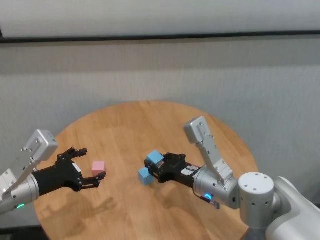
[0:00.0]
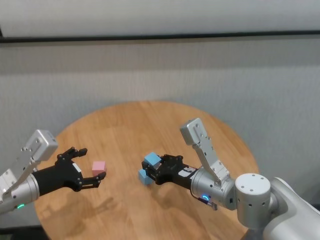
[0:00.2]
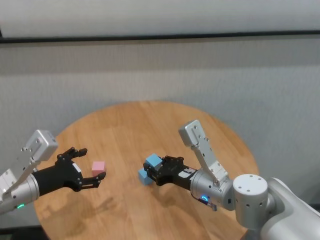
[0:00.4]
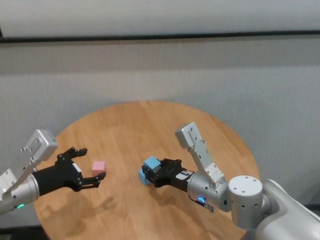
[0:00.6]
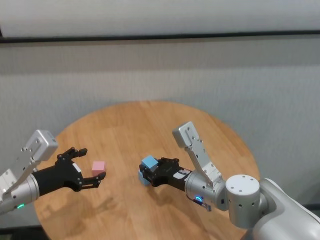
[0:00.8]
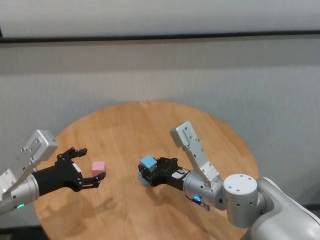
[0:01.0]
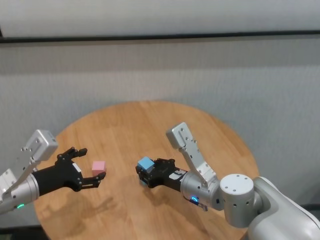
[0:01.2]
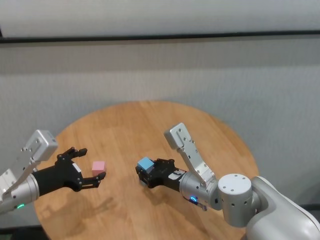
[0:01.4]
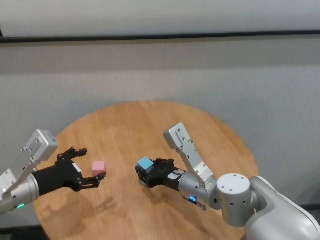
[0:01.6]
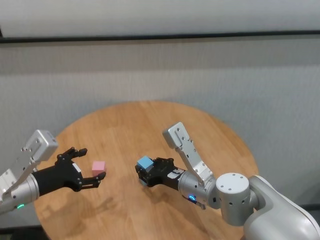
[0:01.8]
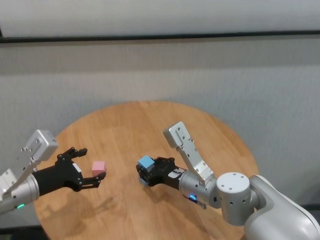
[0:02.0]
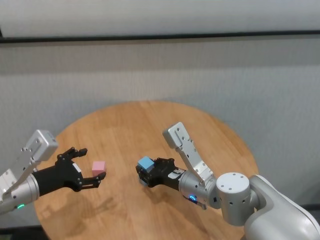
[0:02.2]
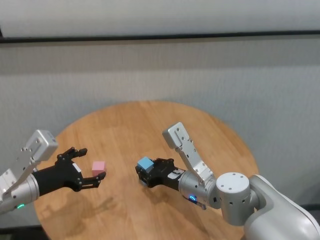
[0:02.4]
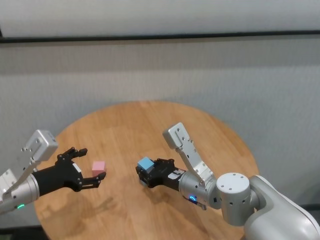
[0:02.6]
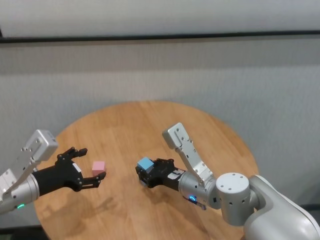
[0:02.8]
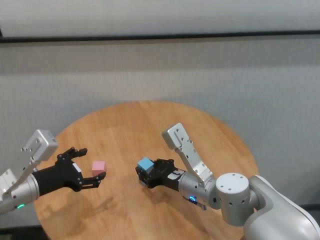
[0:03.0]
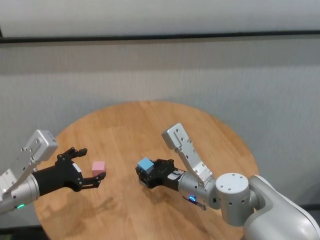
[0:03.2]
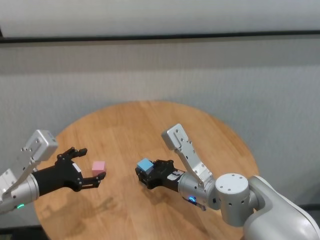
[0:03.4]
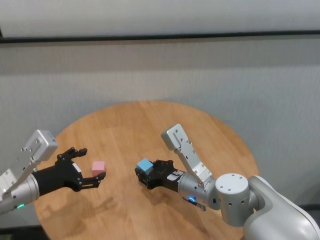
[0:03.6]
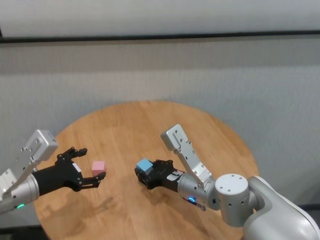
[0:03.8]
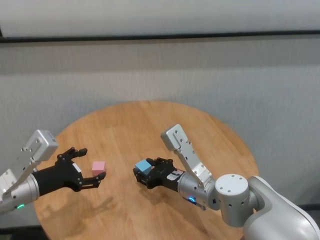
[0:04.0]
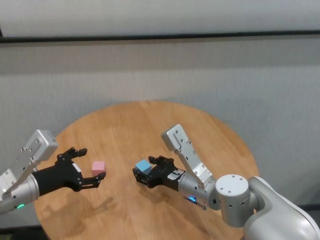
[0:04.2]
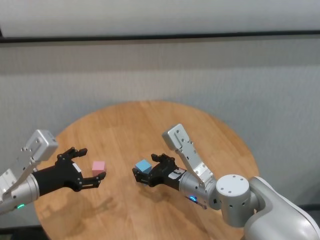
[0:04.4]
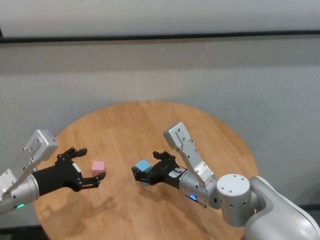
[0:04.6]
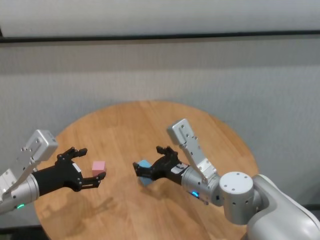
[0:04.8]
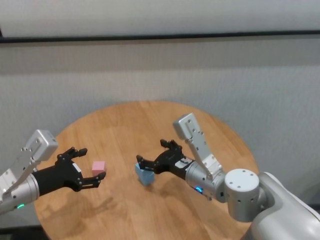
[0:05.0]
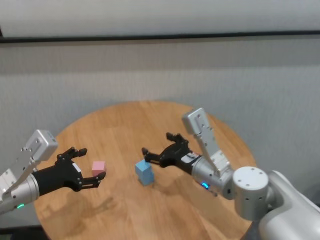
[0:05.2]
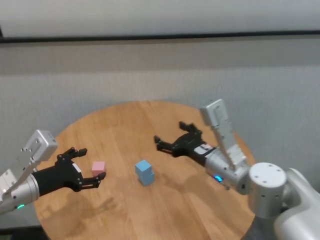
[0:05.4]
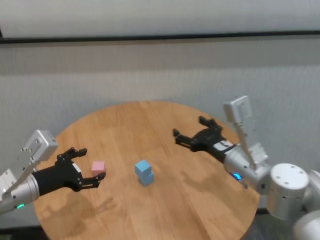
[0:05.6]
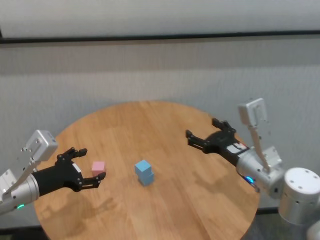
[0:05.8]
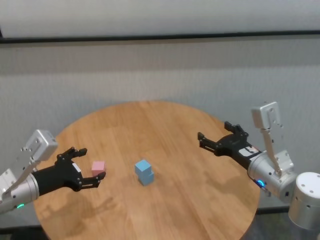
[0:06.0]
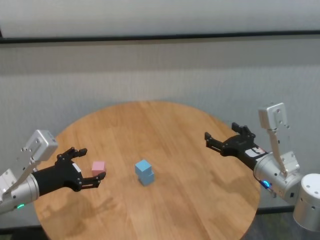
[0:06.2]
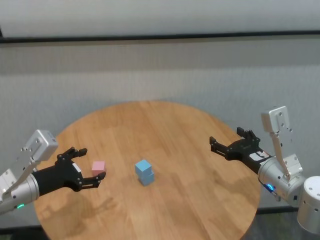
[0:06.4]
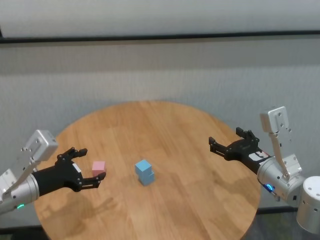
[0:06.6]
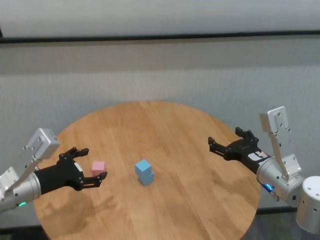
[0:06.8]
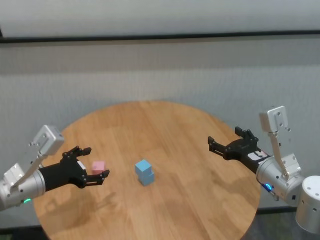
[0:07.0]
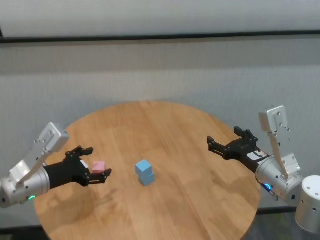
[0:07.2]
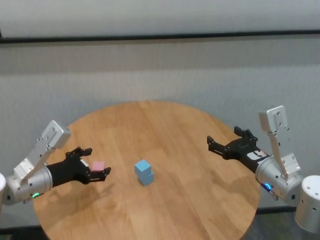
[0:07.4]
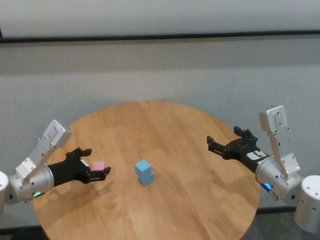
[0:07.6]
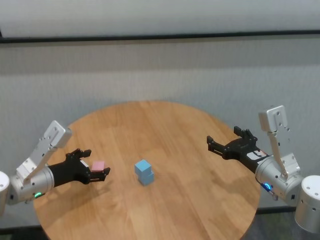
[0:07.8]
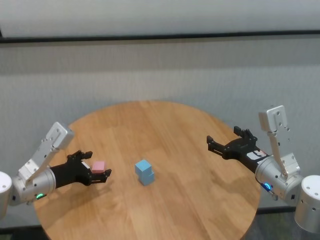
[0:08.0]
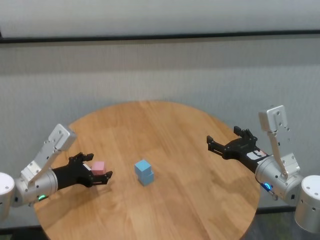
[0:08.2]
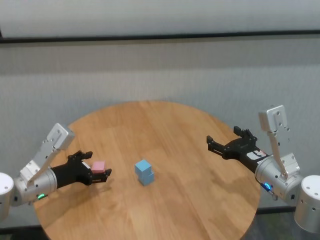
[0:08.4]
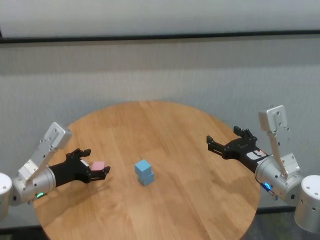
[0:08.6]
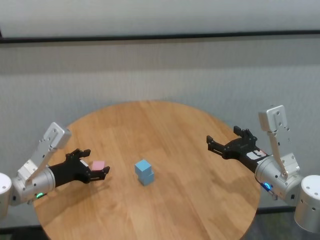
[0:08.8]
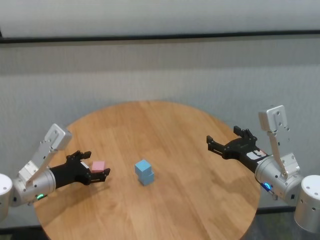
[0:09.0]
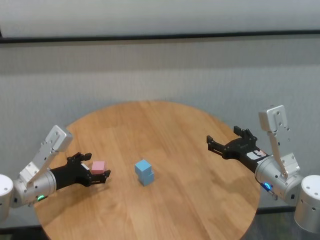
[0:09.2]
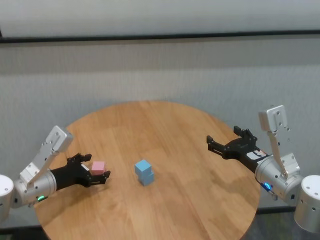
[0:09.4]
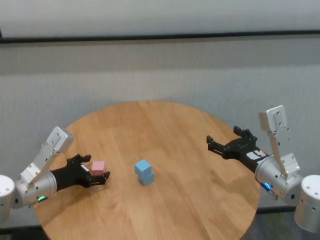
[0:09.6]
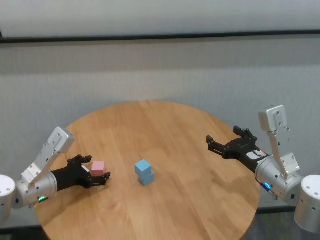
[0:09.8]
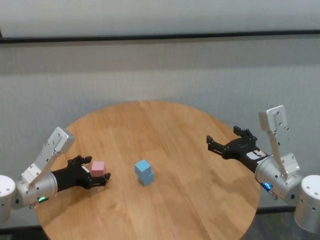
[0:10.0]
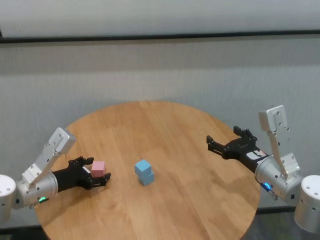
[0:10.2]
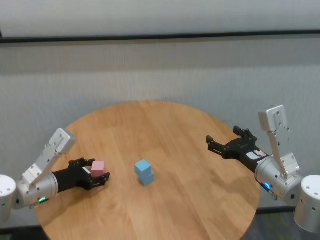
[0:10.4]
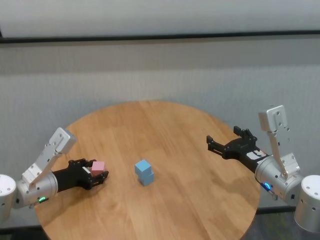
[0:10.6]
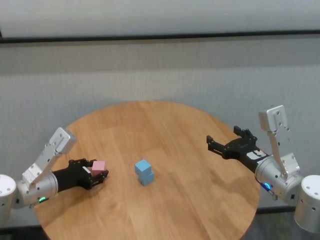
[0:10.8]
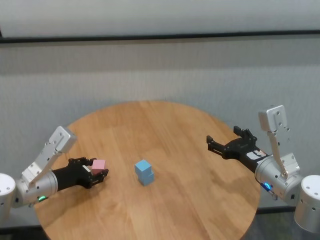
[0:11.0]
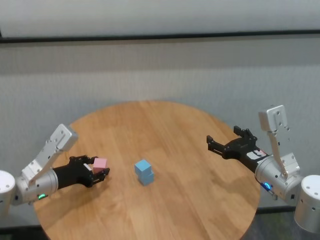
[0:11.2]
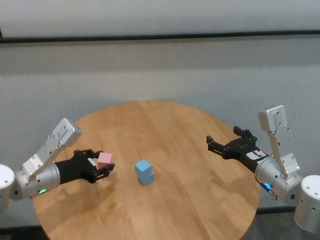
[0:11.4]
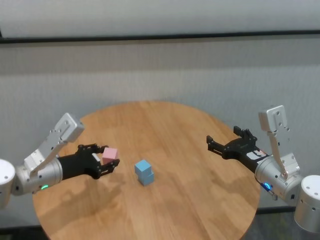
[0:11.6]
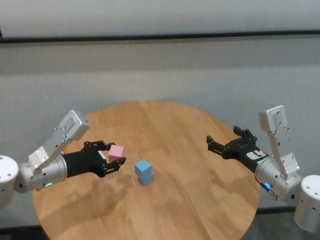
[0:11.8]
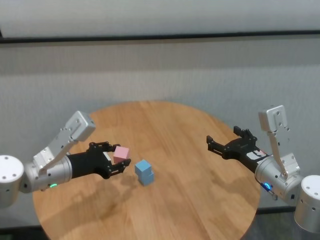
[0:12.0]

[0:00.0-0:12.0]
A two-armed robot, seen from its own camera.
Task of the whole recording: stack building blocks on the table.
Step, 0:00.0 to 0:04.4: Place the blue building block on the blue building blocks with right gripper.

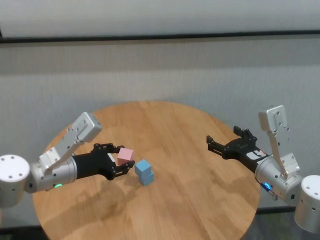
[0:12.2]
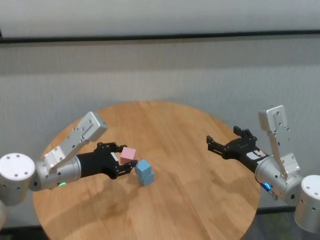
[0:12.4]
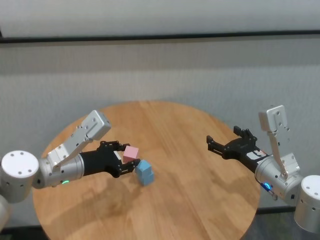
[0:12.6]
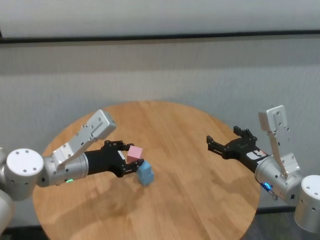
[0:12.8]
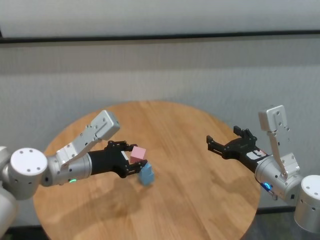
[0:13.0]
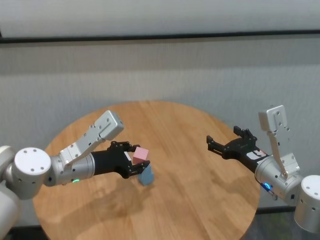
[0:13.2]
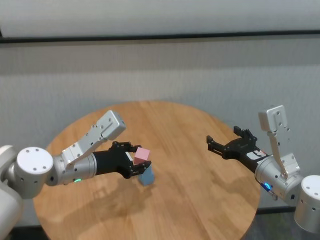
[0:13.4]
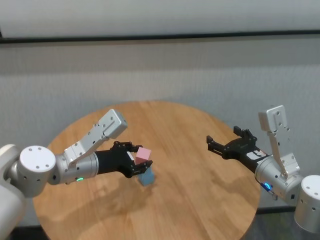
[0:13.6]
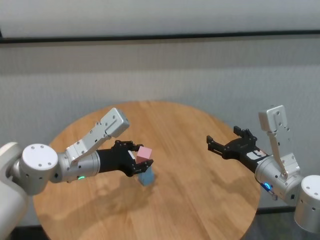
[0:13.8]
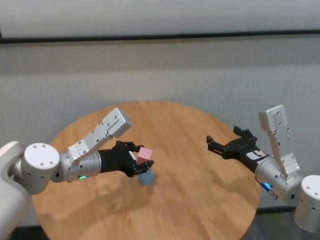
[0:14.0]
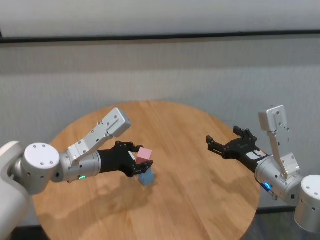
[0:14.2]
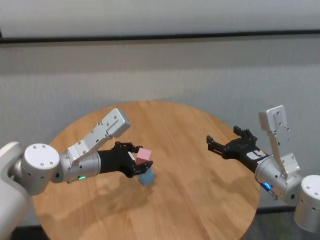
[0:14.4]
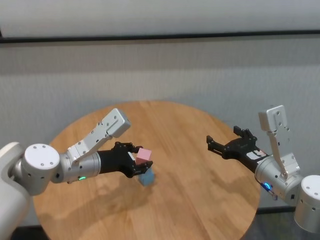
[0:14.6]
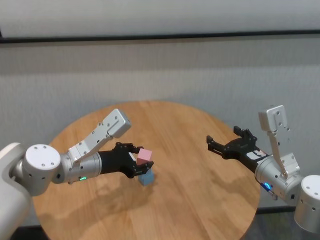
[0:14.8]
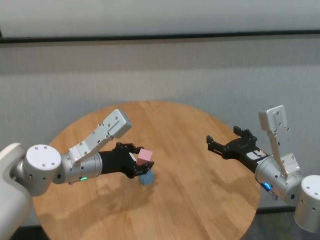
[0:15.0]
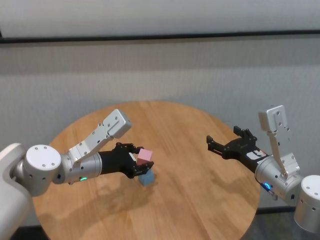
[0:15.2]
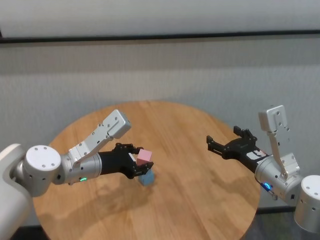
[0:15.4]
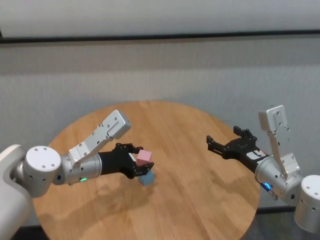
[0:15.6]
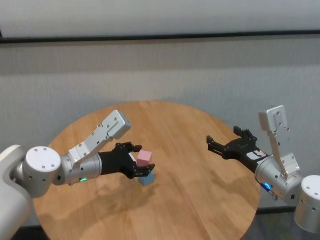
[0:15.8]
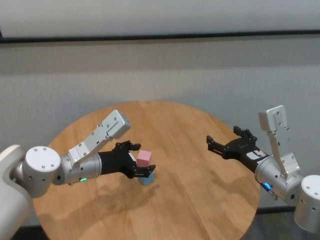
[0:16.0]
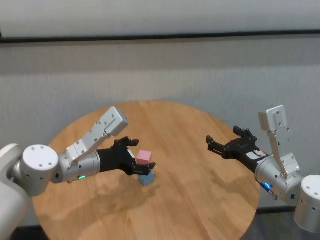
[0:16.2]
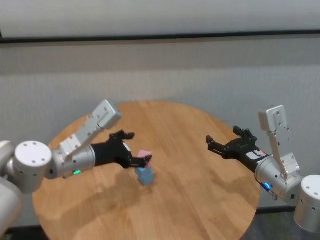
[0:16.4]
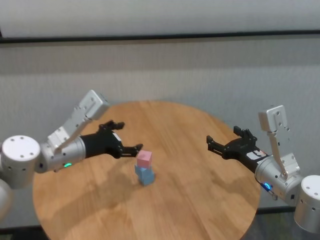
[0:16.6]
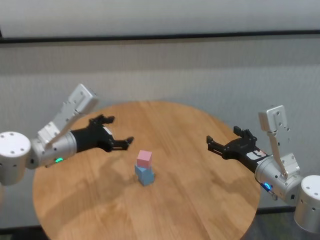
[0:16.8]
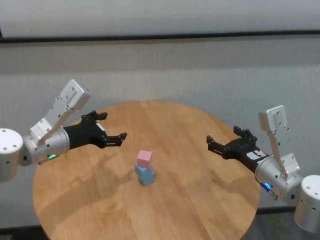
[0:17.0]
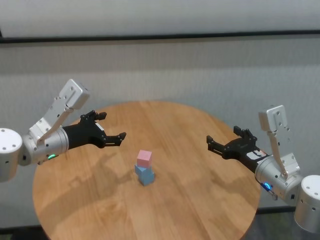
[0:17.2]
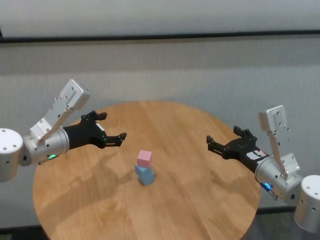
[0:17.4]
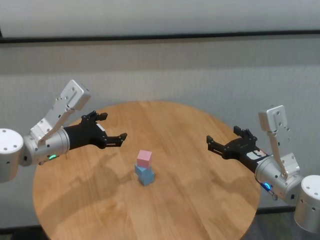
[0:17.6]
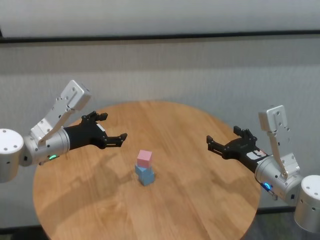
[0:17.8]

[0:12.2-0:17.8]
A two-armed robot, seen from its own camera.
Task of the whole recording: stack building blocks on the table.
Step, 0:12.2 to 0:16.0: Place the pink building block on the blue building blocks with left gripper.

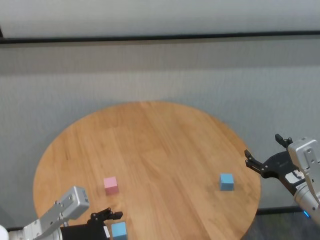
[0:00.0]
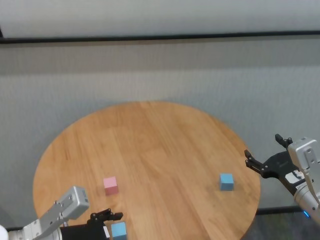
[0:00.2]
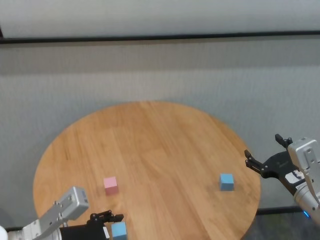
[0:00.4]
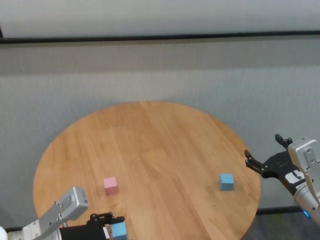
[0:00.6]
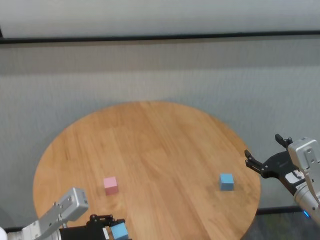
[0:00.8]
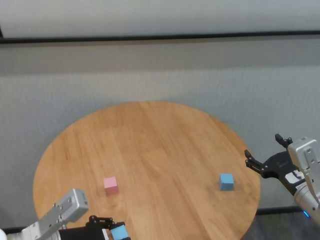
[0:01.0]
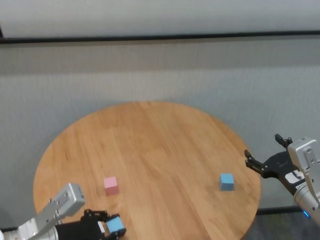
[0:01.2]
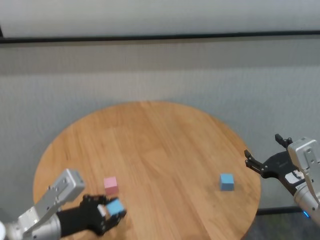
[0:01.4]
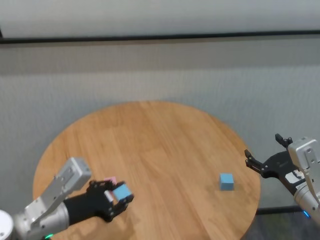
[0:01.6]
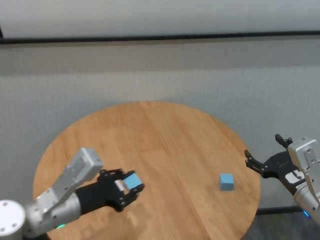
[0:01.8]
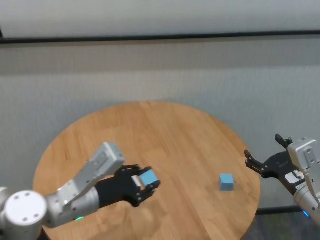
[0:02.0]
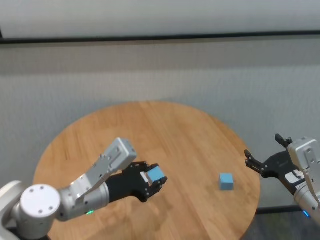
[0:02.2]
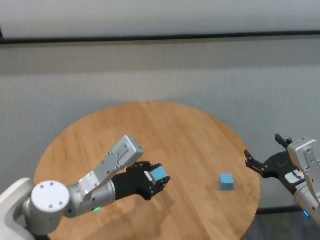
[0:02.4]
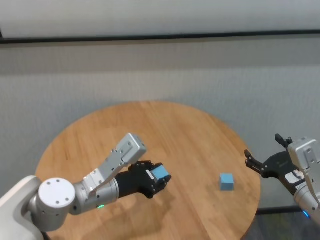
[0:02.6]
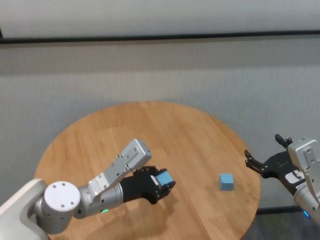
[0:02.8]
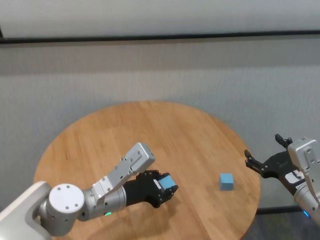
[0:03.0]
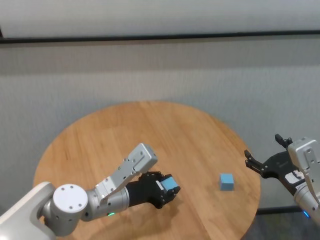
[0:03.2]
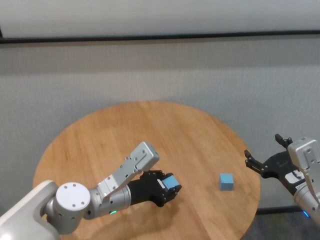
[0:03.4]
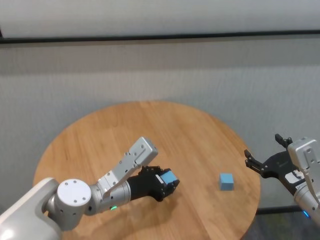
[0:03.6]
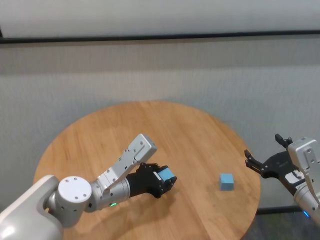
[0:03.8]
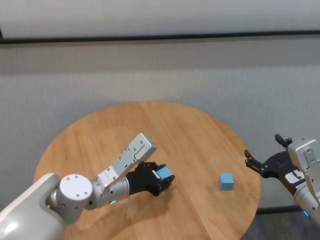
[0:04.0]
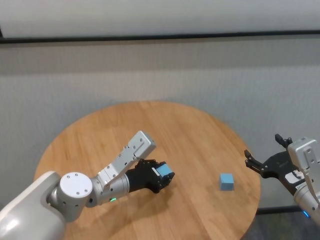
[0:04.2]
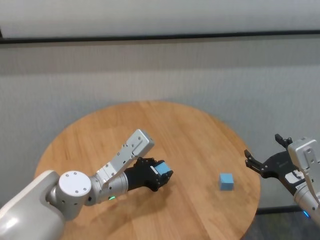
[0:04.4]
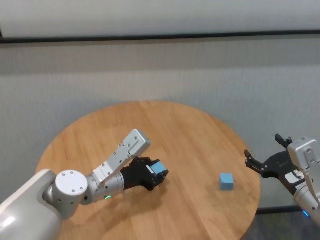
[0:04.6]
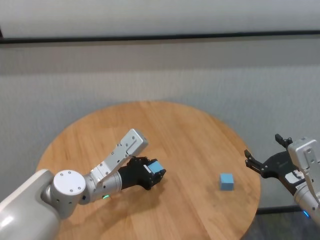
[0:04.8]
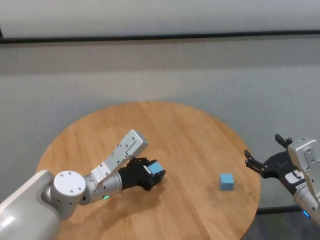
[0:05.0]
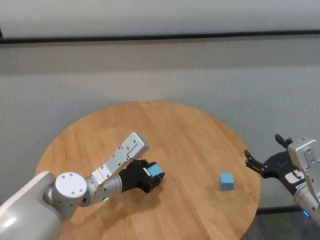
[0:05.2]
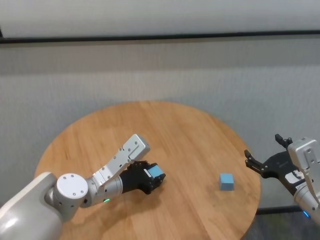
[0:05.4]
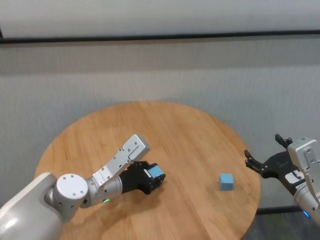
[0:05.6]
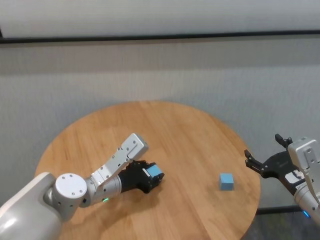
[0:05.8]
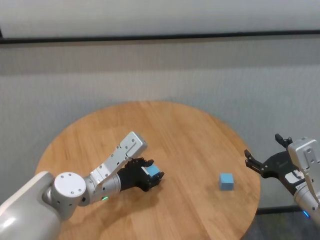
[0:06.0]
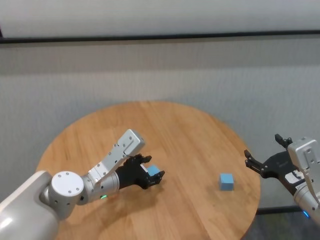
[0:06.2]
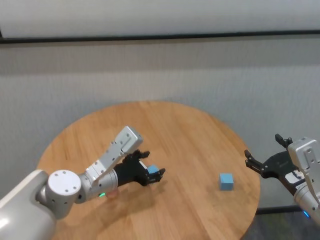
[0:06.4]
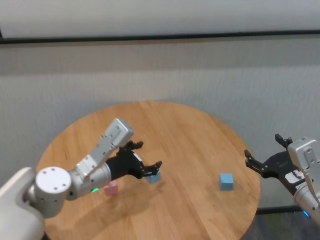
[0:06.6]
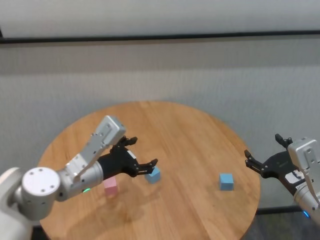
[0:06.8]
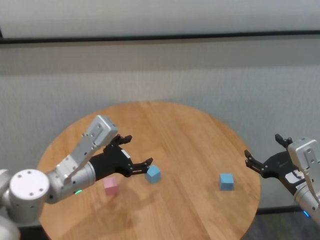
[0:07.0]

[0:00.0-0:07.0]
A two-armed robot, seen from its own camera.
Task of the whole recording: stack building blocks on the table.
Step, 0:00.0 to 0:06.2: Place the blue building block in the center of table with left gripper.
